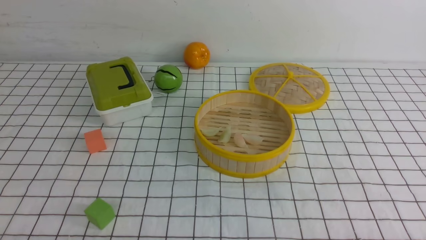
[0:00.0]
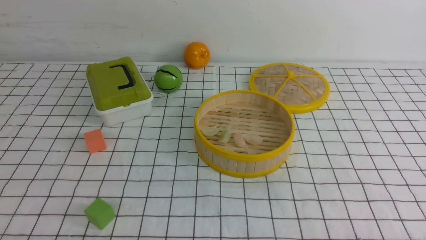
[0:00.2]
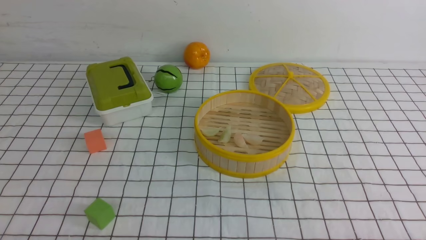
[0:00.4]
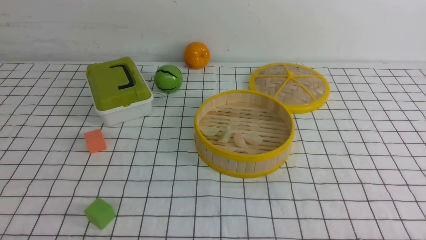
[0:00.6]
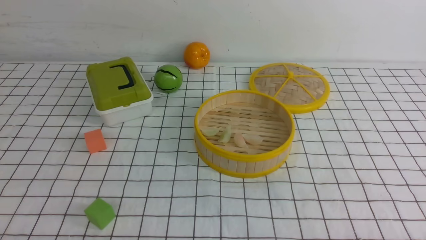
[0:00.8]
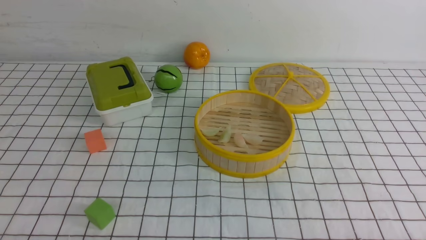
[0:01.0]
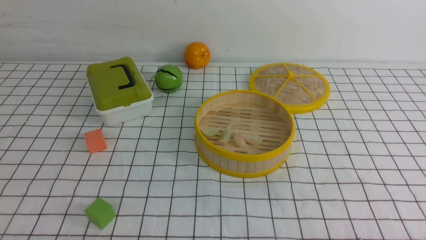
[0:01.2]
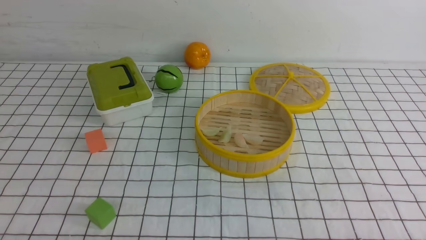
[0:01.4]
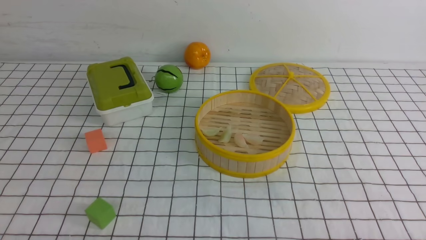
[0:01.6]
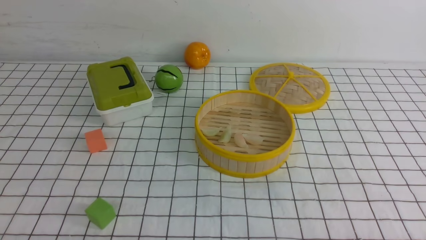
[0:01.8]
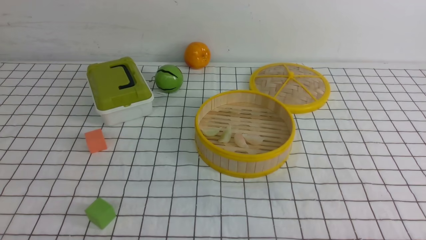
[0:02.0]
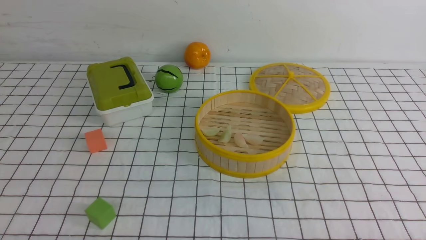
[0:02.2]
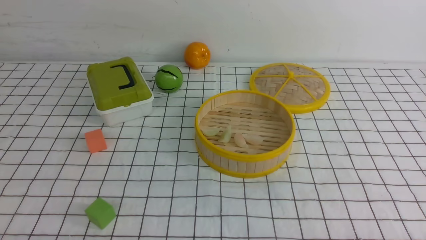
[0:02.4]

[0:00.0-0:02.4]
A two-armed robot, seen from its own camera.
Task of the whole recording: put the dumplings into the steamer on the table with the white tablecloth.
0:00.0 to 0:02.4: Both grippers stay about where they are.

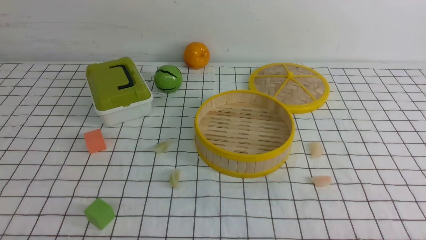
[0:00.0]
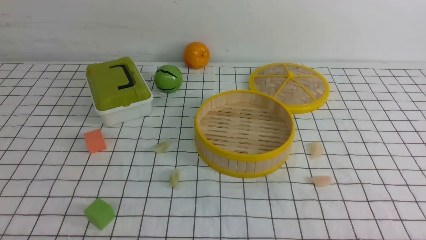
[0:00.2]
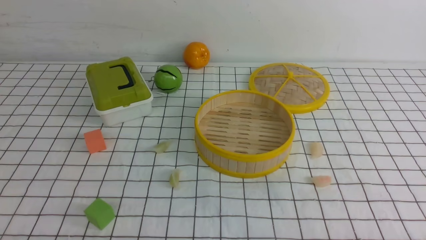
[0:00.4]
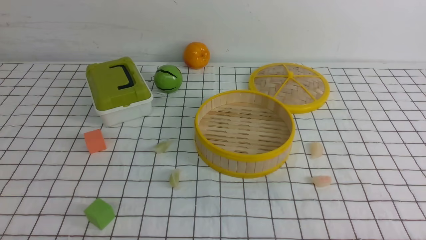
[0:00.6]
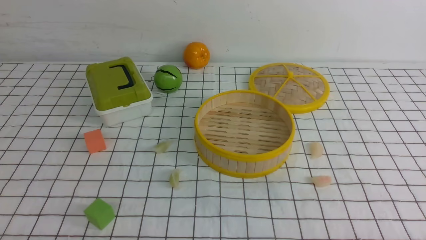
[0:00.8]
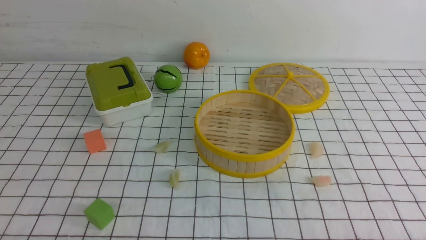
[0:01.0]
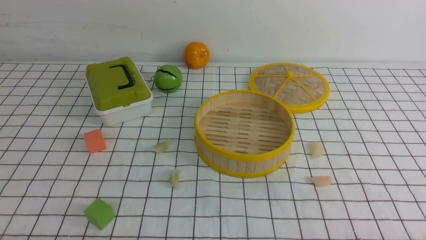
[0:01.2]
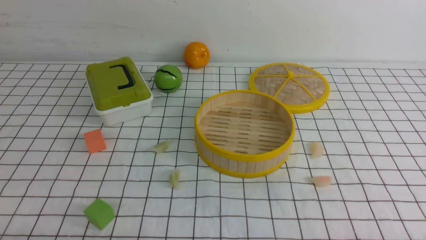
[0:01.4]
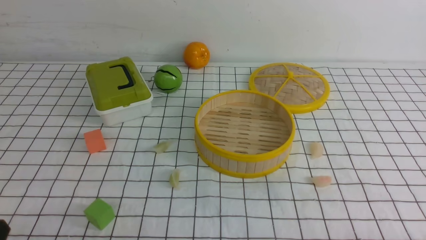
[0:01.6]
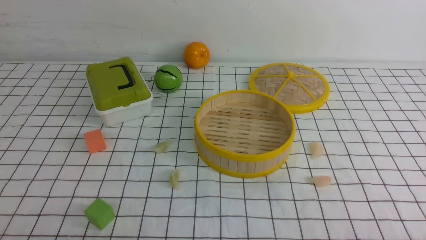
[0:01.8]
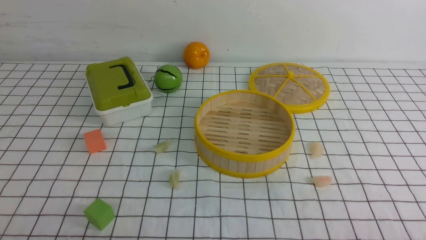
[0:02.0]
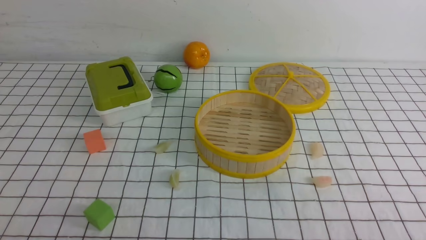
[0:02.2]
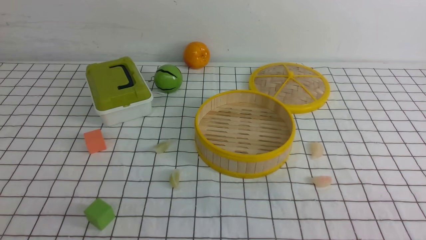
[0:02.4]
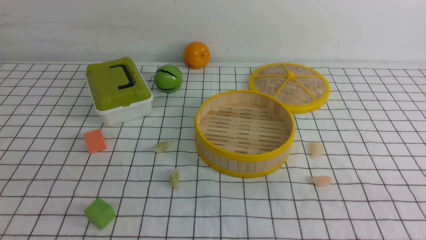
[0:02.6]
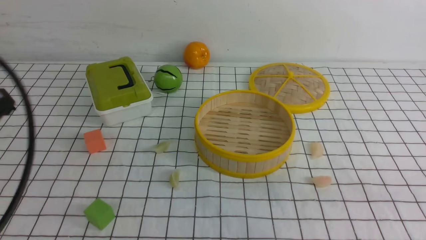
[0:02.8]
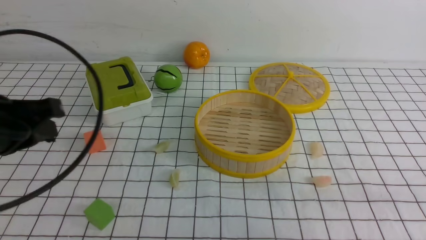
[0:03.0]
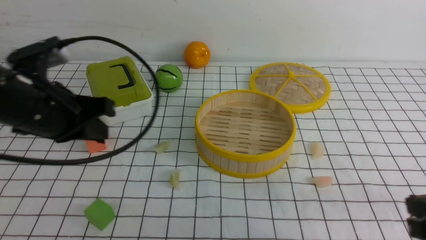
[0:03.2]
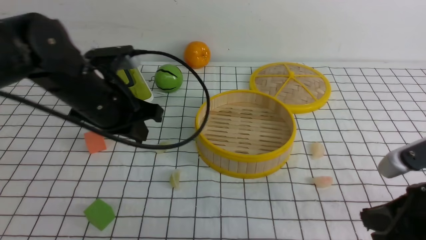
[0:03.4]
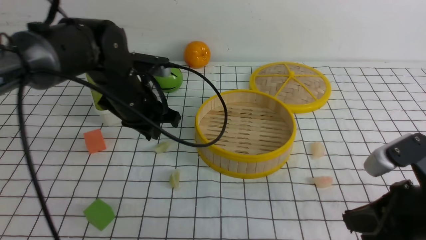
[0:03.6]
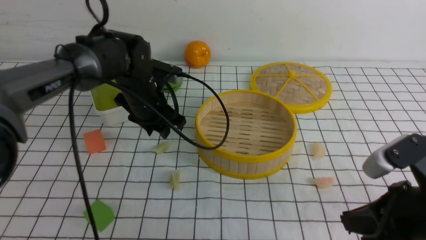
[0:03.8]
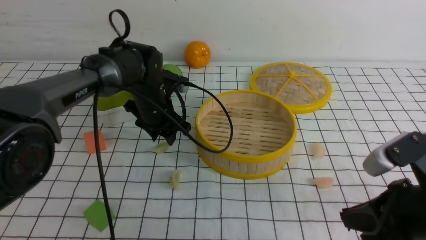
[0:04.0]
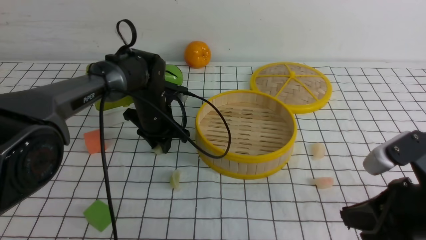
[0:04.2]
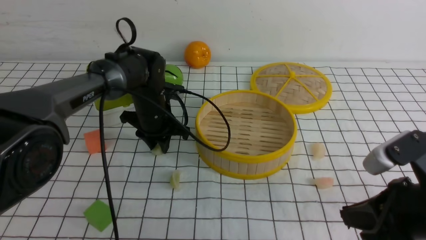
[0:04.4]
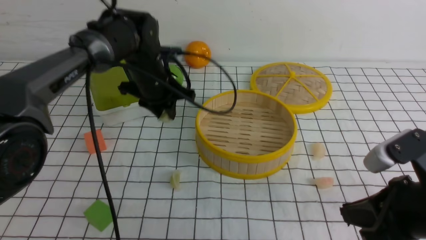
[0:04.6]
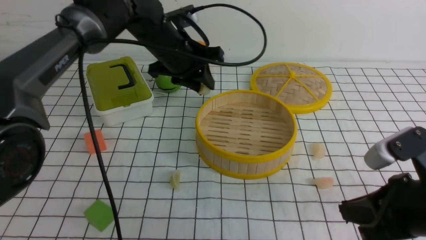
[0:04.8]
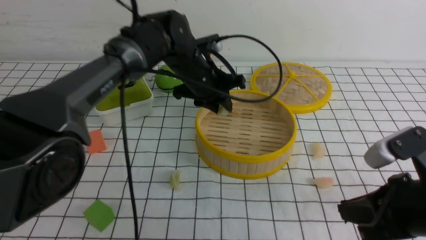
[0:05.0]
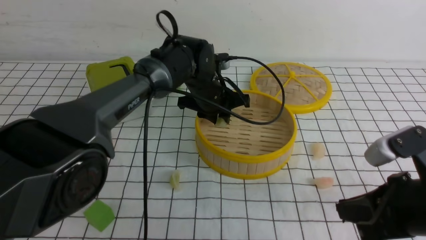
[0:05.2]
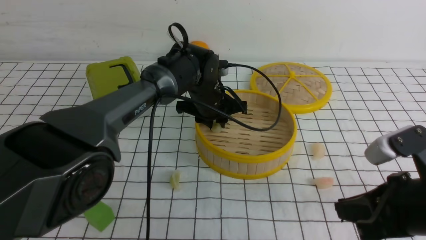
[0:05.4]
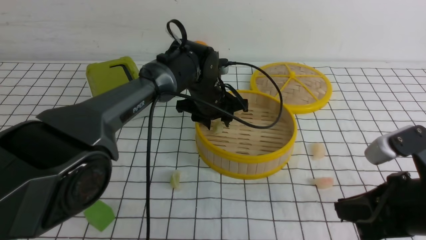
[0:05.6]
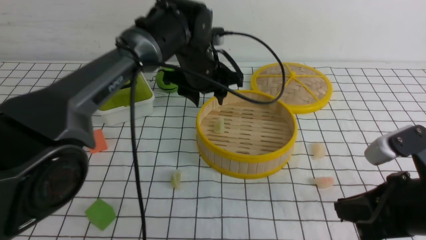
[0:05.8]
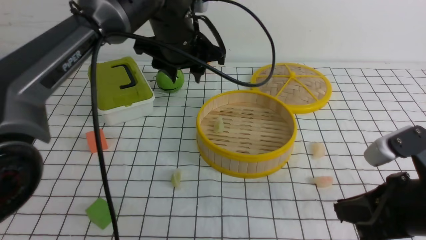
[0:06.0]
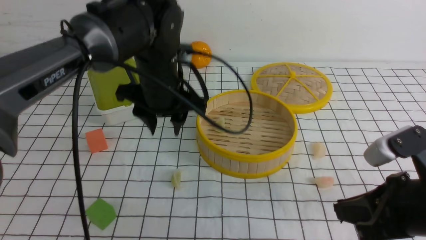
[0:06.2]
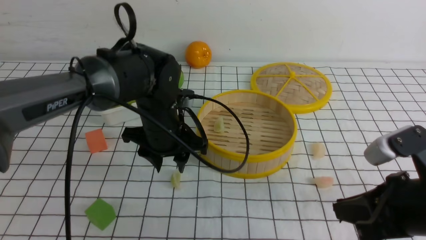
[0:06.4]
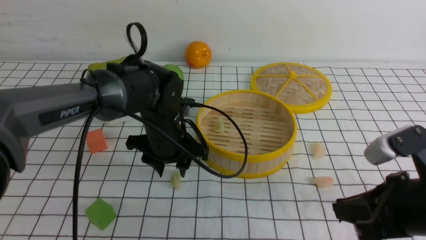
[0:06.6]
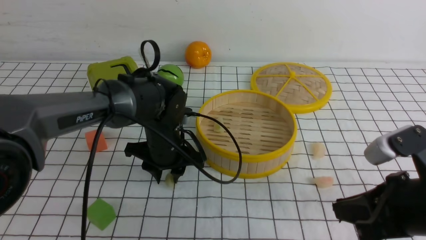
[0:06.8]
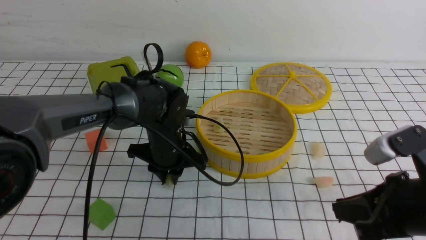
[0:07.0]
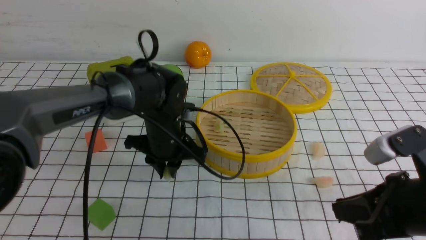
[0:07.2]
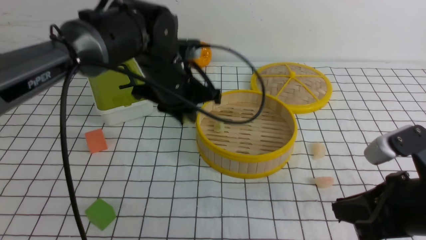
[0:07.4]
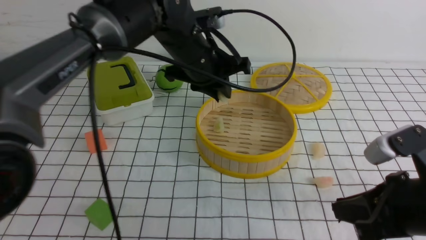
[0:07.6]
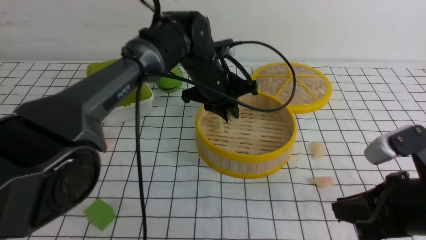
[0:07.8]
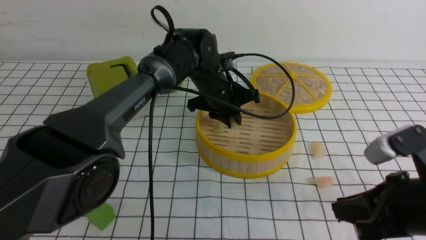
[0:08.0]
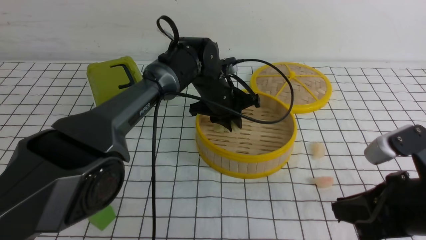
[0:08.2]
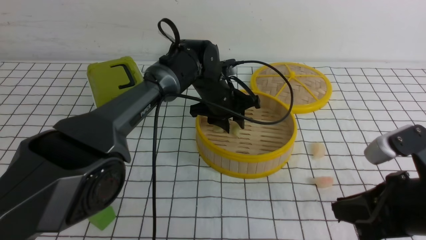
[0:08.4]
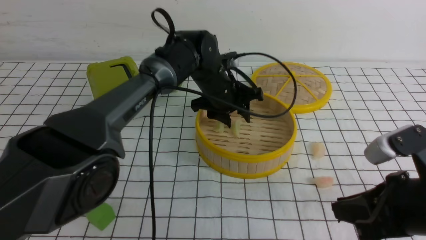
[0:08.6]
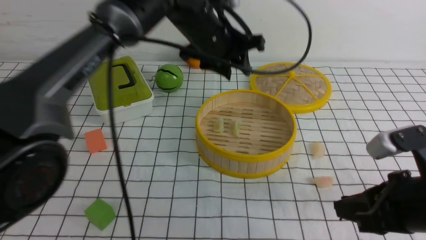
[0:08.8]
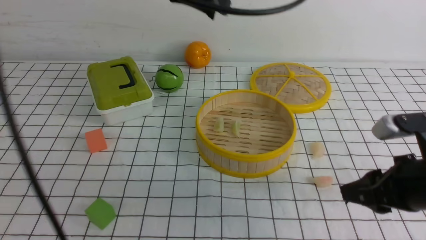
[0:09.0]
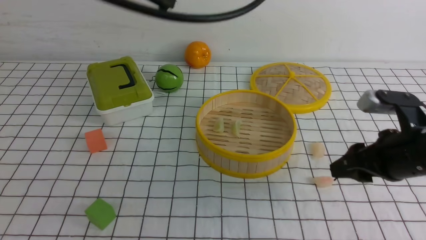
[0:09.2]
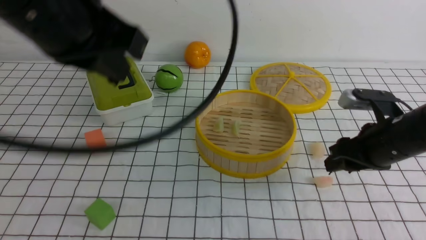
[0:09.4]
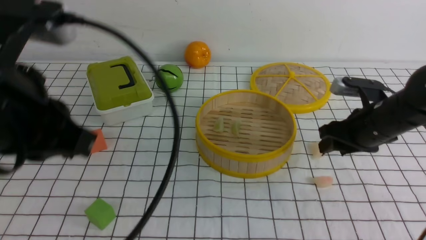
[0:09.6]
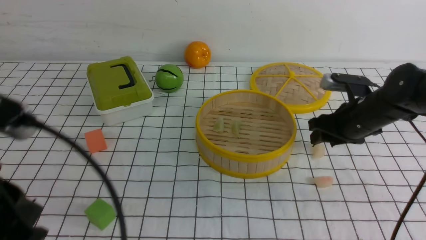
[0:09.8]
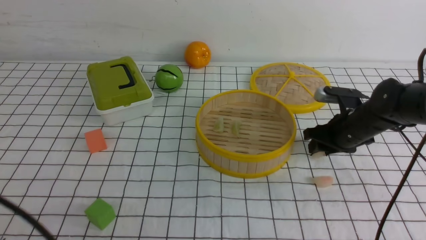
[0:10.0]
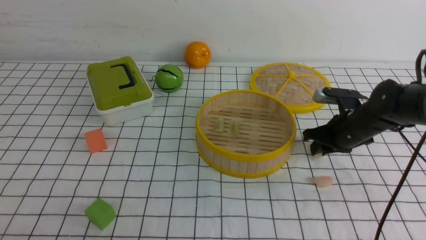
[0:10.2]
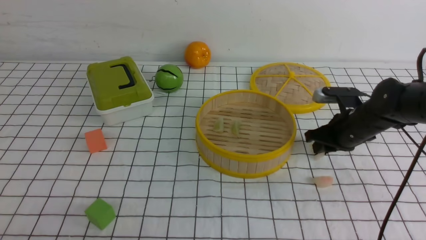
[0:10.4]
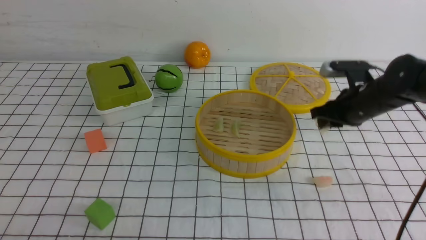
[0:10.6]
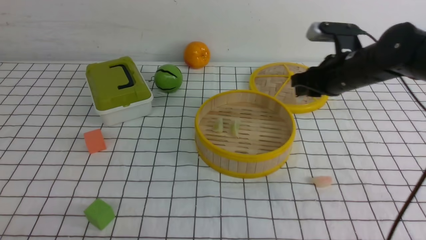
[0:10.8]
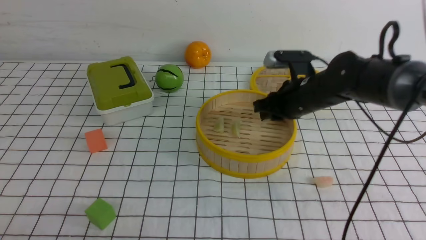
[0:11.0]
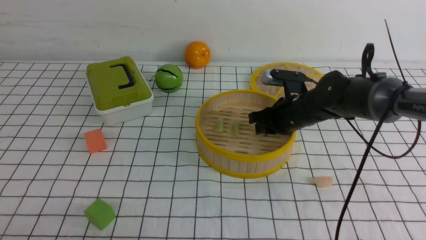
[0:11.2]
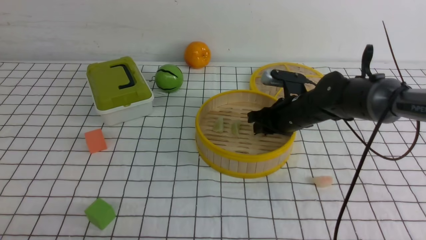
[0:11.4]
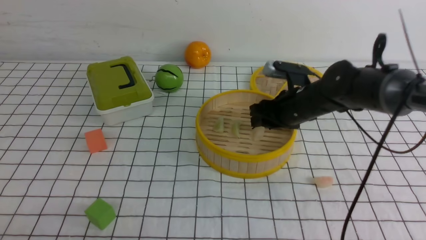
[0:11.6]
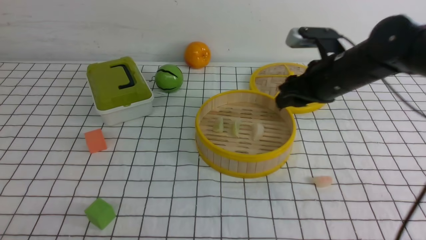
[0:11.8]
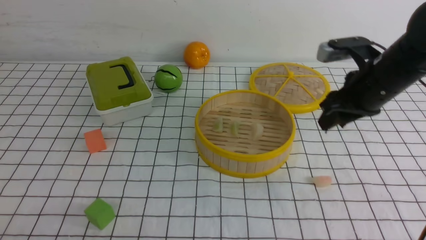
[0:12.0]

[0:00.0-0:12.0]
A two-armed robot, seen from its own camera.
Task of the whole recording: put the dumplings into the steamer on the table with the white tablecloth.
Step, 0:00.0 to 0:04.2: use the left arm to grab a dumpling.
Step, 0:04.4 to 0:05.6: use the left arm to put the dumpling into the steamer.
Step, 0:06.0 to 0:07.0: use the left arm to grab a dumpling.
Step, 0:07.2 to 0:08.6: use the left arm to put the dumpling into the steamer.
Step, 0:08.8 to 0:10.2: use the right arm to grab a dumpling.
Step, 0:10.4 to 0:11.6: use the right arm to put the dumpling into the steamer.
0:01.6 to 0:03.0: The left gripper moves forward and upward, about 20 cm, and closes up.
0:03.0 to 0:04.4: The right gripper is displaced to the left by approximately 5 cm. Meanwhile the left gripper travels forward, downward and to the right by some 30 cm, and opens up.
0:04.4 to 0:06.0: The left gripper goes up and down, approximately 10 cm each way, reversing 2 times, and opens its fingers.
0:06.0 to 0:07.6: The left gripper reaches about 15 cm downward, then returns, and closes.
0:07.6 to 0:09.0: The right gripper opens up, while the left gripper moves upward and backward, approximately 20 cm, and opens and closes again.
0:09.0 to 0:10.4: The left gripper goes some 40 cm backward, downward and to the left, and closes up. Meanwhile the right gripper shifts approximately 20 cm forward.
0:10.4 to 0:12.0: The right gripper travels upward by about 10 cm, reaches about 10 cm to the left, then returns, and opens its fingers.

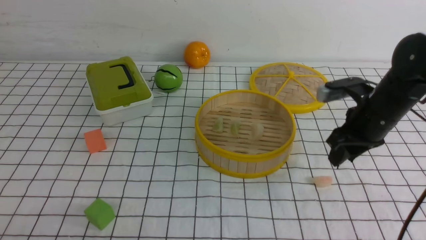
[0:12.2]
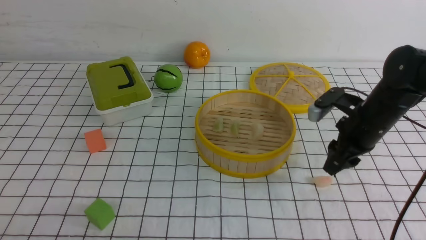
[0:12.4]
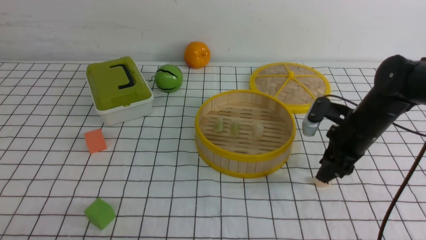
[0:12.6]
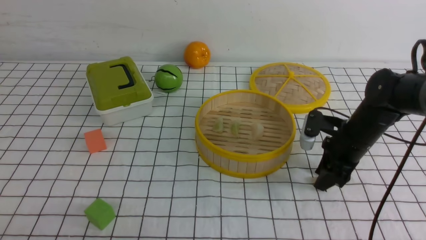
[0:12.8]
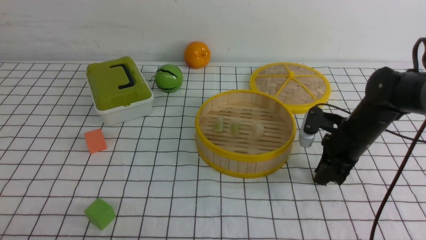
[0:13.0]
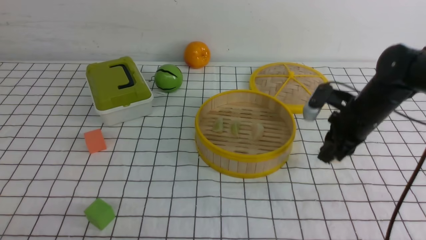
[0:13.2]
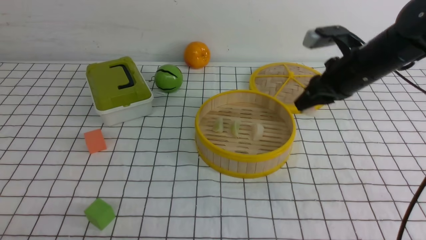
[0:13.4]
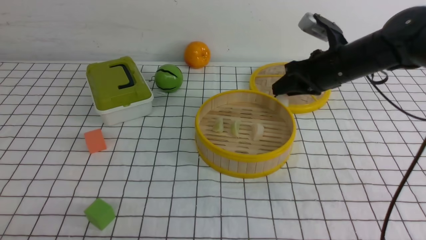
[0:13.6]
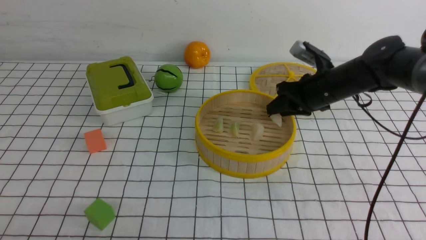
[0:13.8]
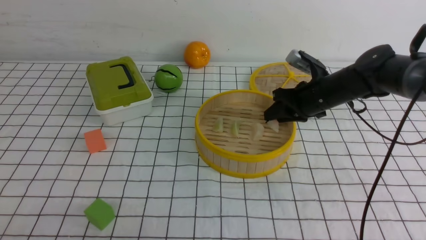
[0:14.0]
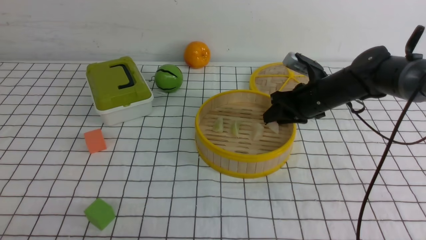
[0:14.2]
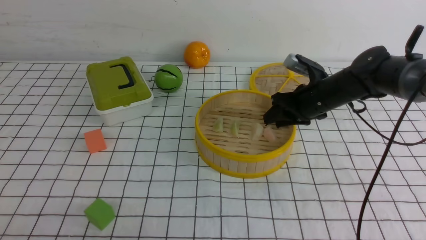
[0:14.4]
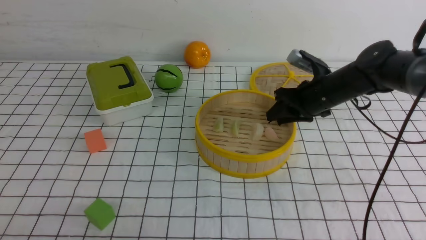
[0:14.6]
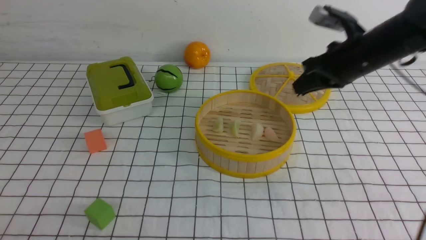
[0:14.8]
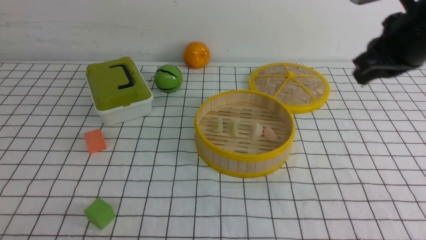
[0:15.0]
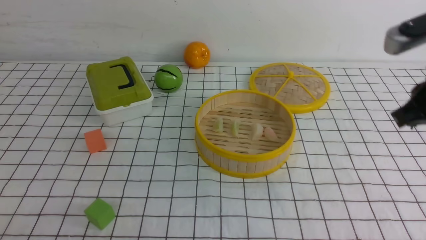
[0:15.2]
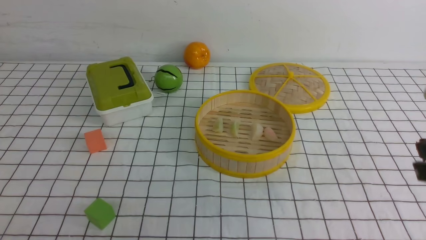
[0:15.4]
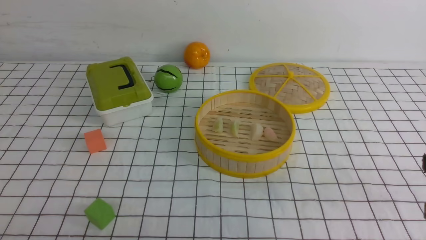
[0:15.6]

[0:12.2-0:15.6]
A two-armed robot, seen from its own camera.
Task of the whole recording: put the dumplings into the steamer on the table with the white tablecloth.
Step, 0:12.2 to 0:12.8: use the right arm to grab a dumpling.
Step, 0:13.2 to 0:14.6: use the right arm to put the dumpling into the steamer.
0:12.2 to 0:13.8: The right gripper is displaced forward by some 10 cm, travels downward and back again, some 5 cm each way, and closes its fingers.
0:13.8 to 0:15.6: The right gripper travels backward by about 30 cm, and closes its fingers.
